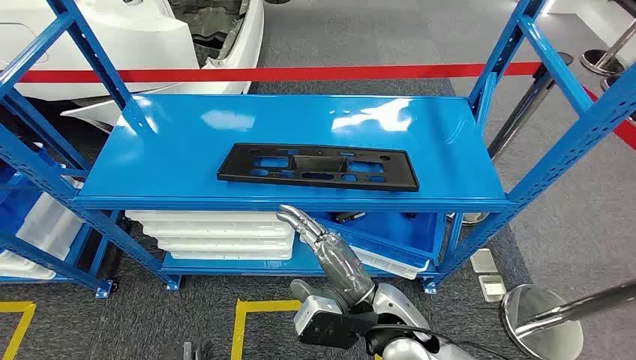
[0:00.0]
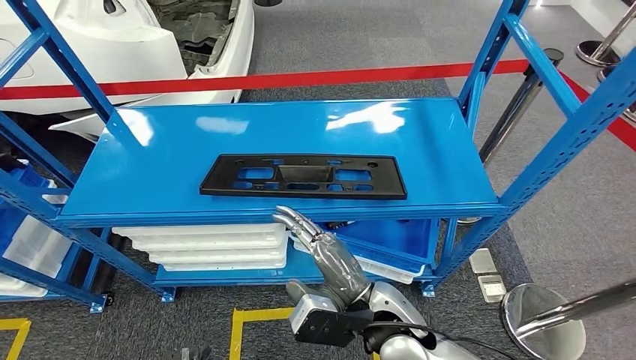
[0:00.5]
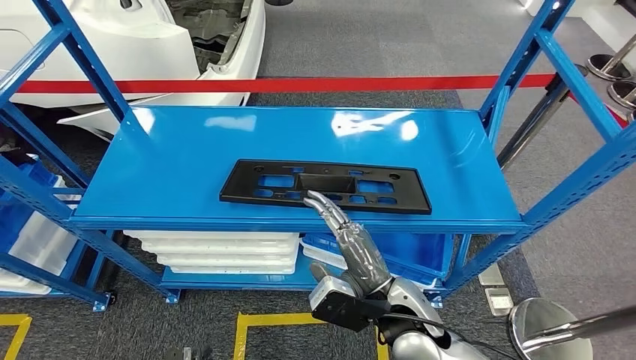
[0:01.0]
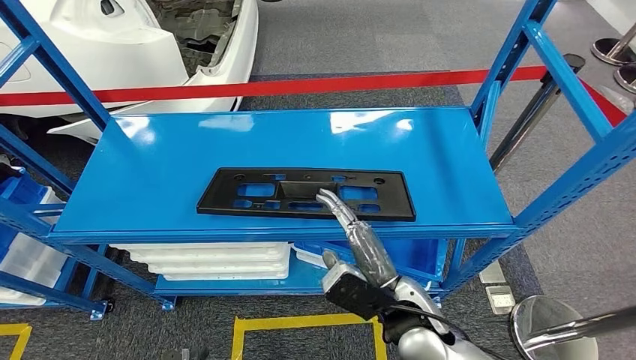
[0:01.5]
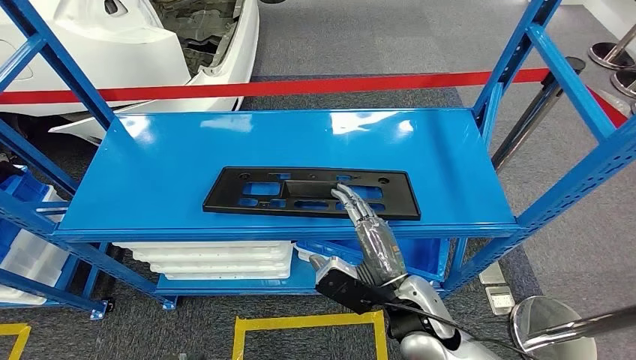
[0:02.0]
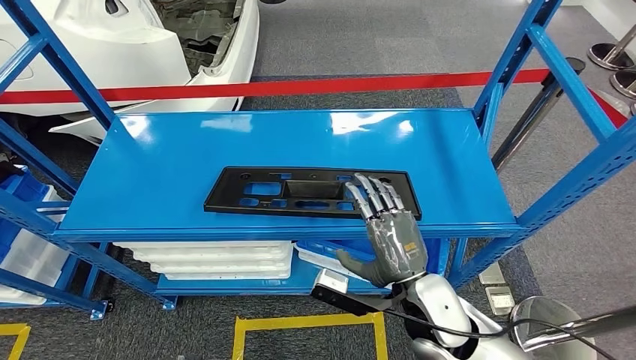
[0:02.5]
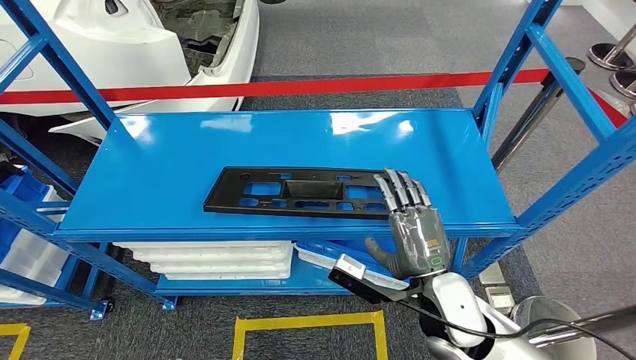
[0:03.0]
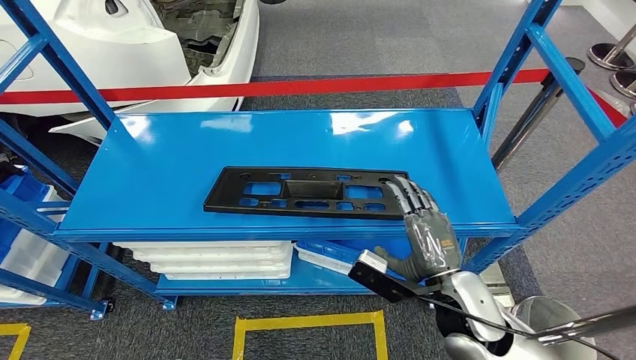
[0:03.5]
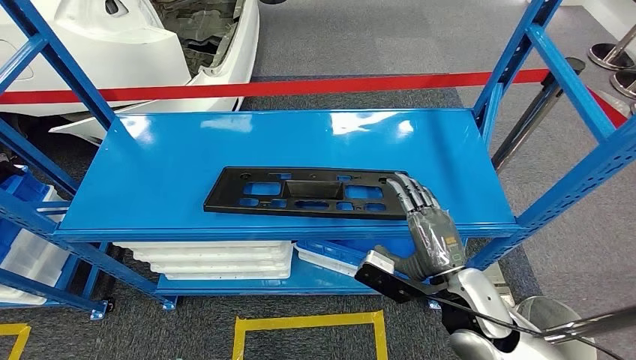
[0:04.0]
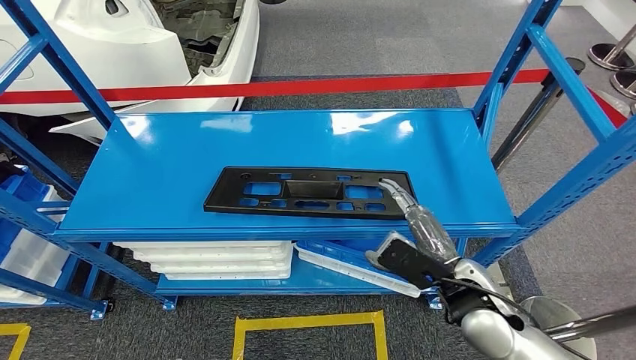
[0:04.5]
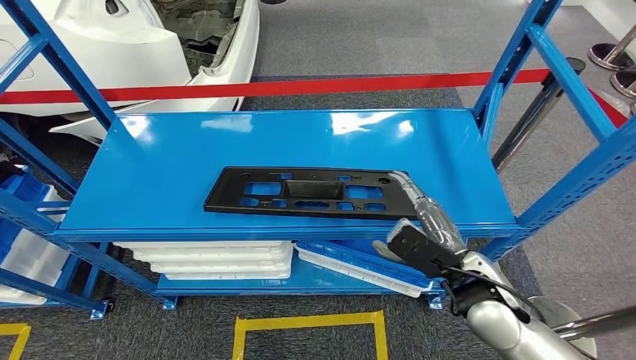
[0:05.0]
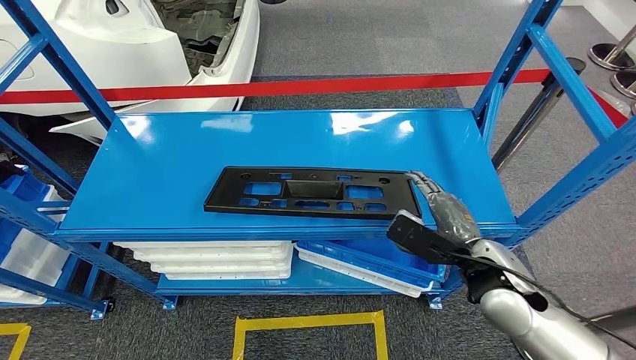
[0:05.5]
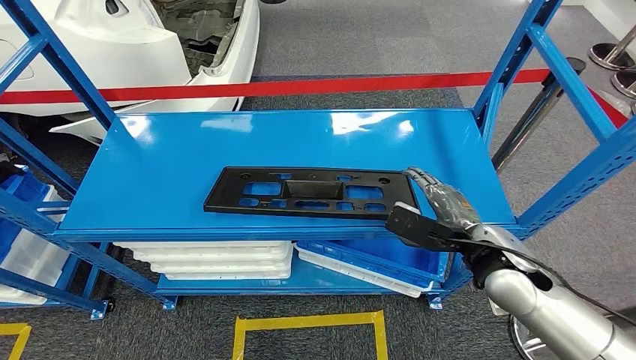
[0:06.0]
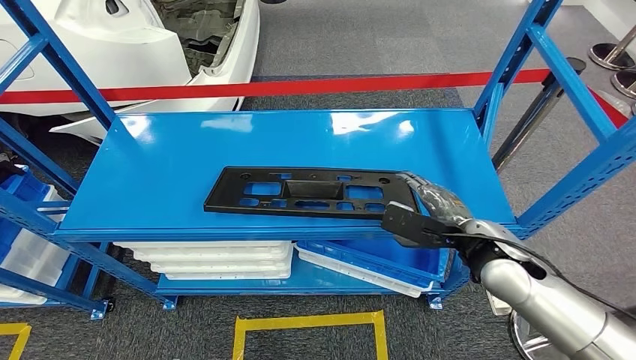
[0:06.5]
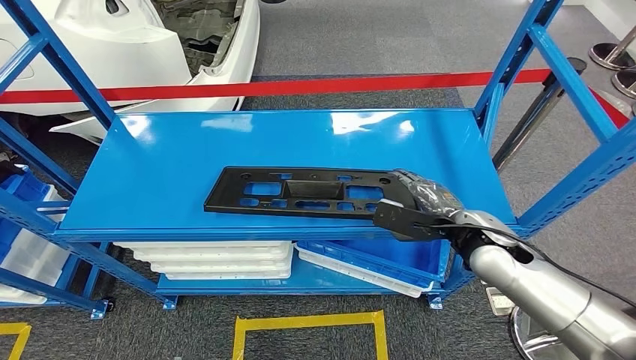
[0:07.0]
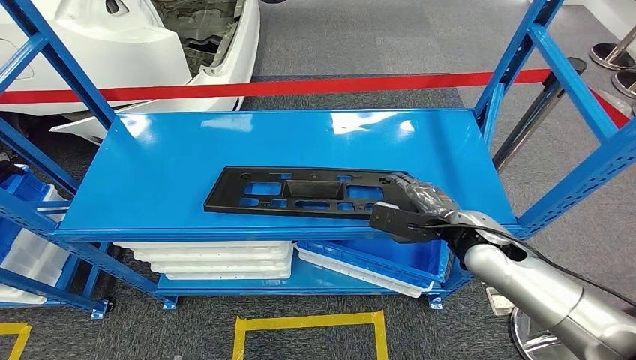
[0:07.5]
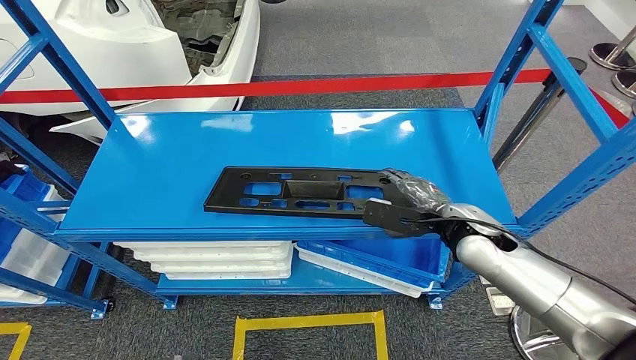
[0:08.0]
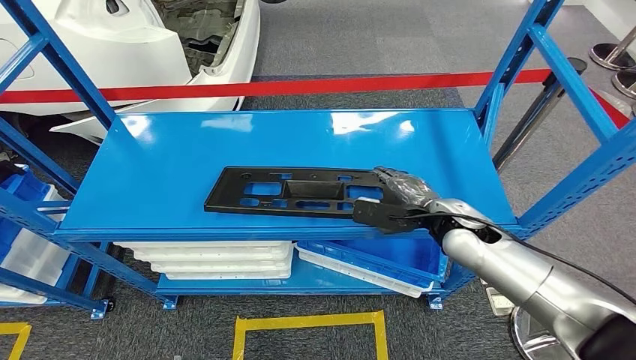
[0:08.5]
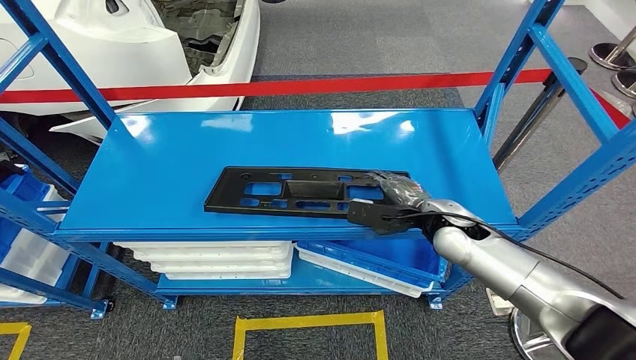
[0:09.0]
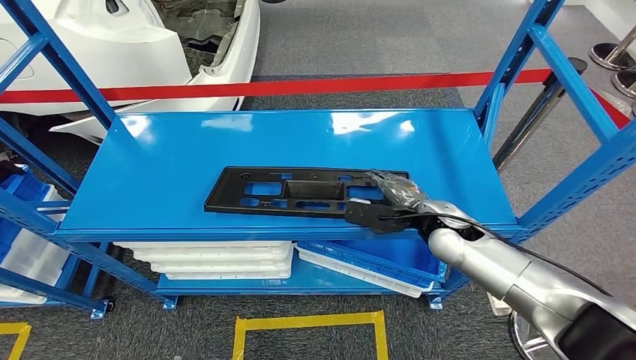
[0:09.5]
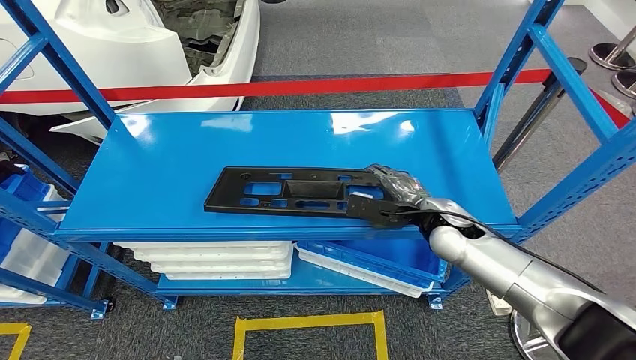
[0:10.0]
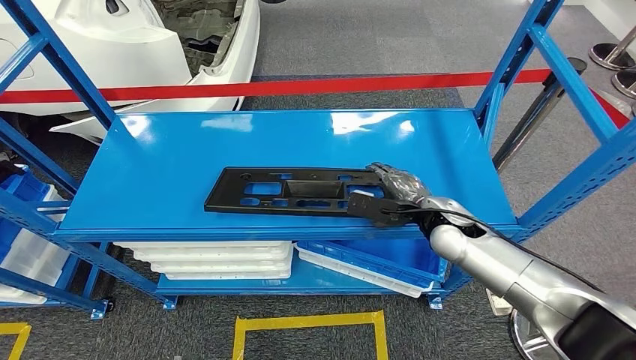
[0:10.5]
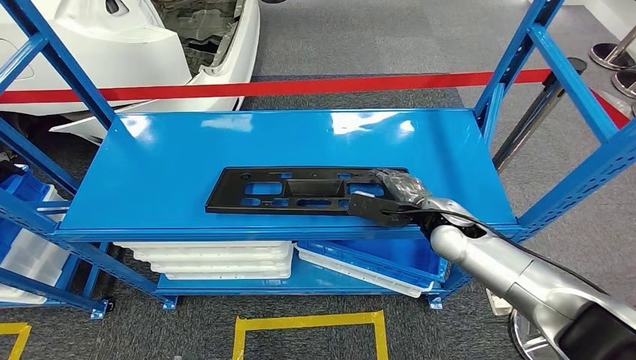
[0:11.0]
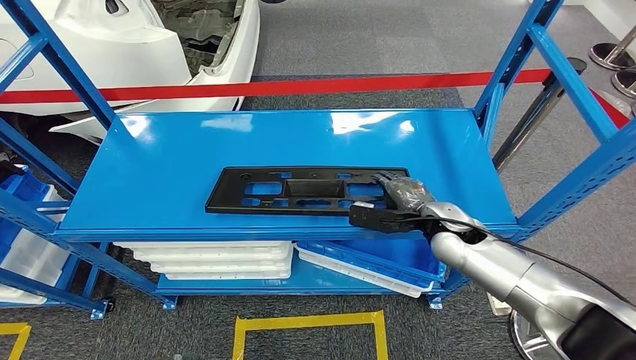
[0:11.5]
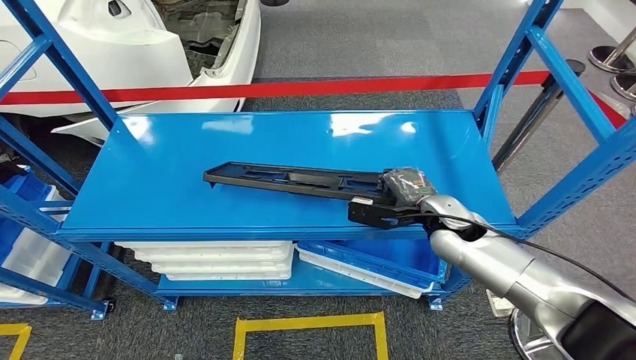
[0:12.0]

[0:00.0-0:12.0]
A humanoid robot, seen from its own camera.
0:02.0 to 0:04.0: The right hand is displaced to the right by about 5 cm.
0:04.0 to 0:06.0: The right hand goes about 5 cm to the right.
0:06.0 to 0:08.0: The right hand shifts about 5 cm forward.
0:08.0 to 0:10.0: The right hand shifts by some 5 cm.
0:10.0 to 0:12.0: The hands move only a little.

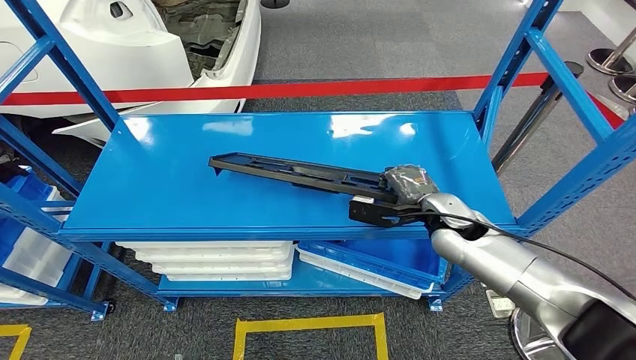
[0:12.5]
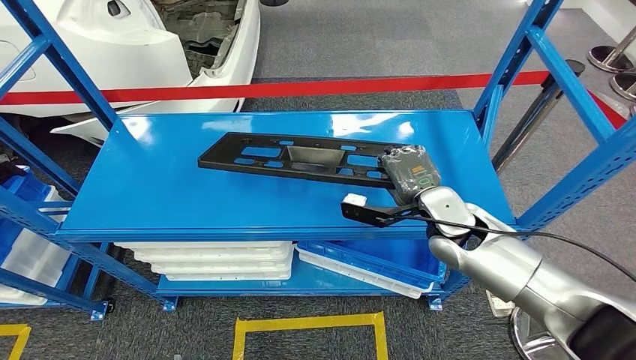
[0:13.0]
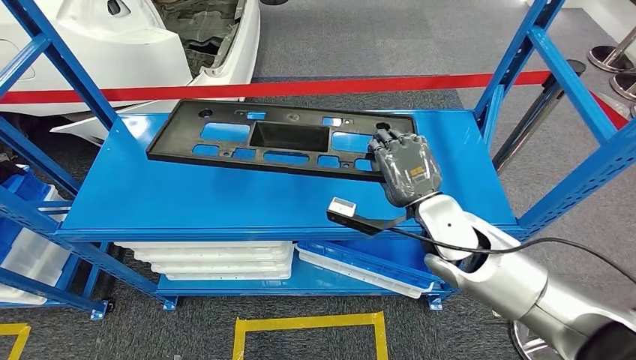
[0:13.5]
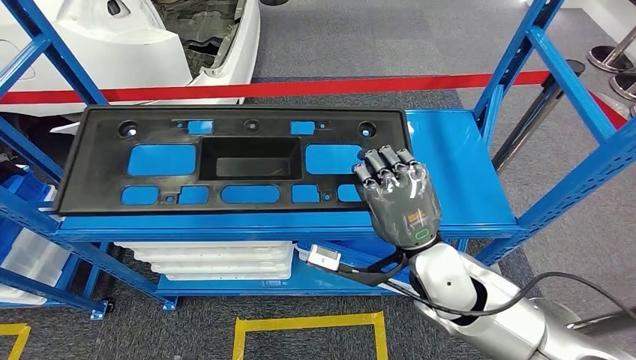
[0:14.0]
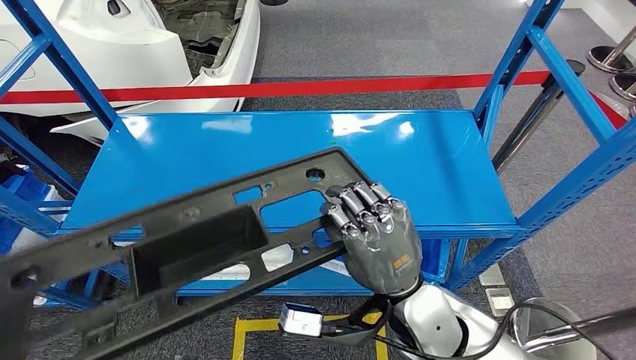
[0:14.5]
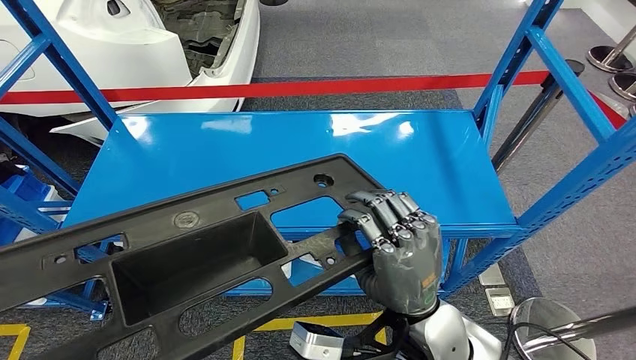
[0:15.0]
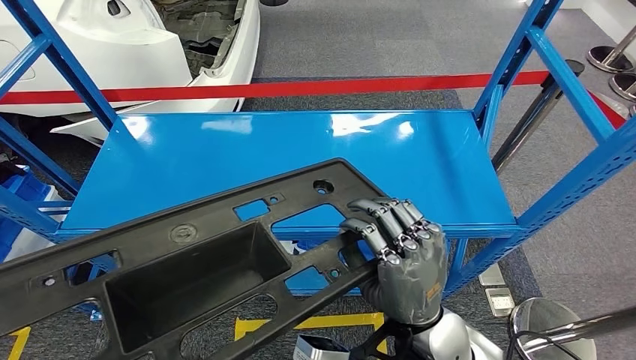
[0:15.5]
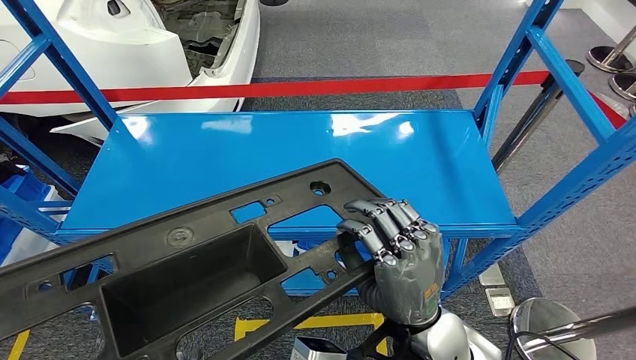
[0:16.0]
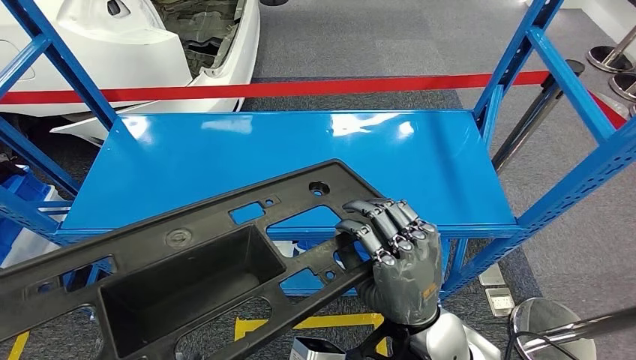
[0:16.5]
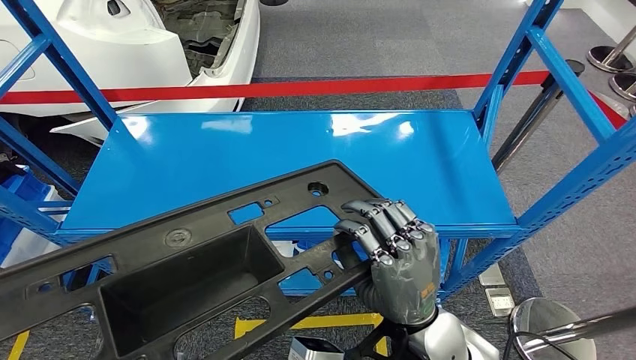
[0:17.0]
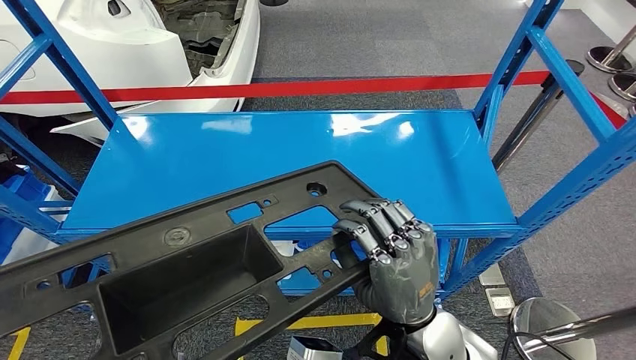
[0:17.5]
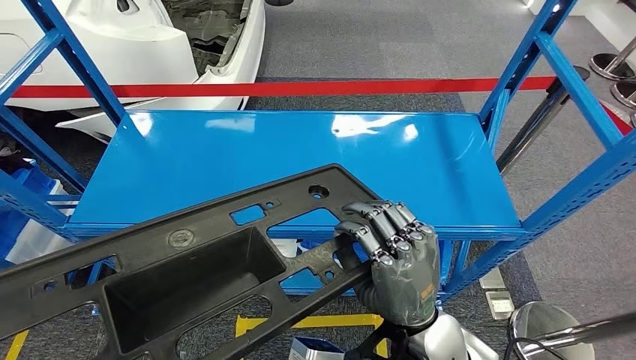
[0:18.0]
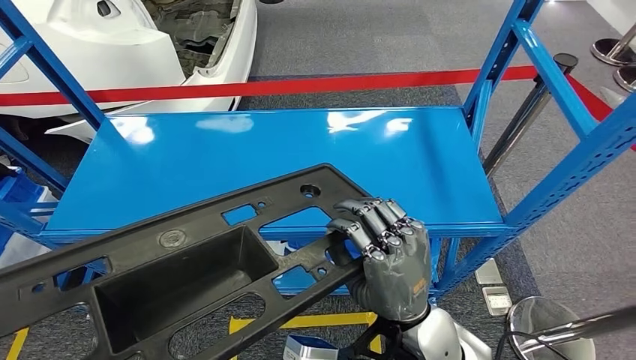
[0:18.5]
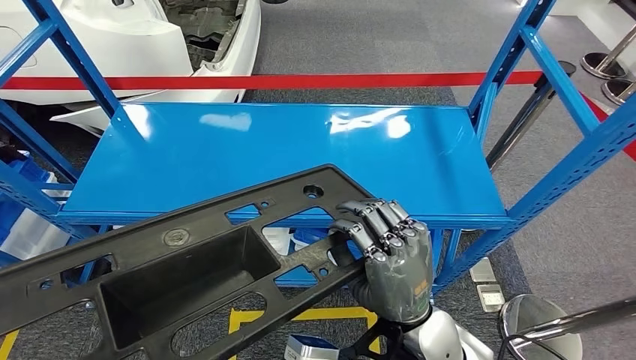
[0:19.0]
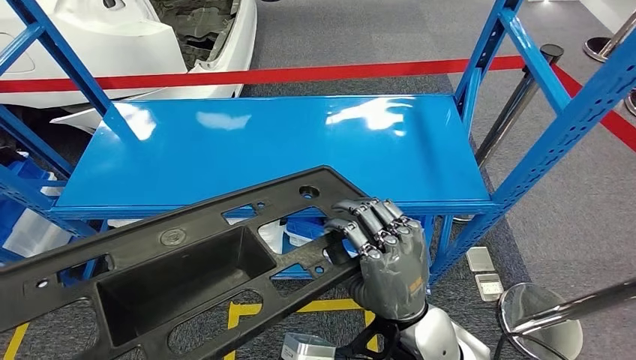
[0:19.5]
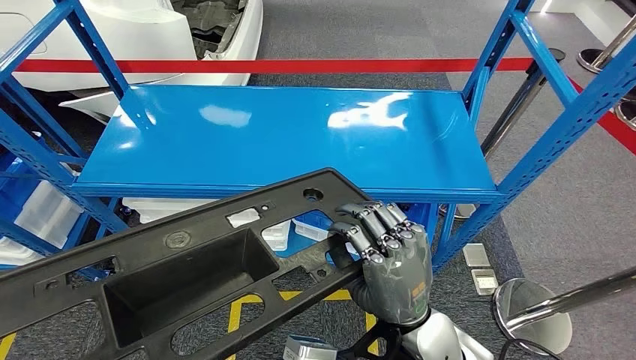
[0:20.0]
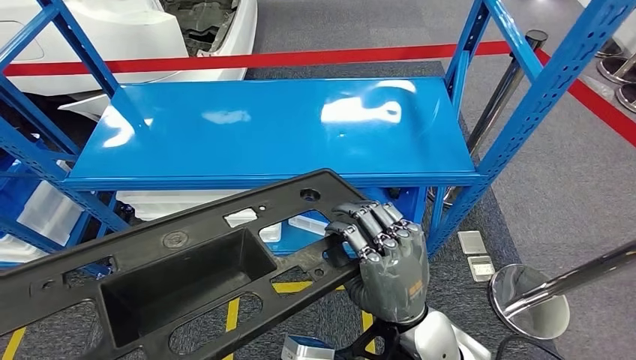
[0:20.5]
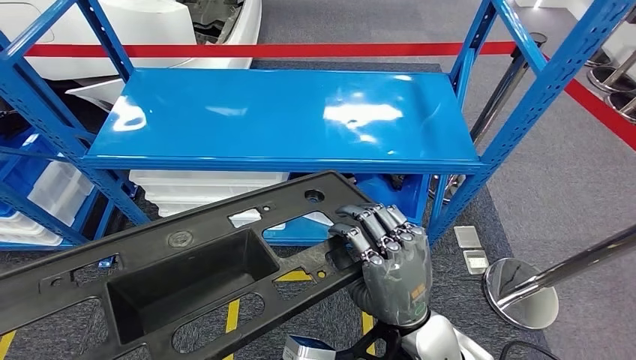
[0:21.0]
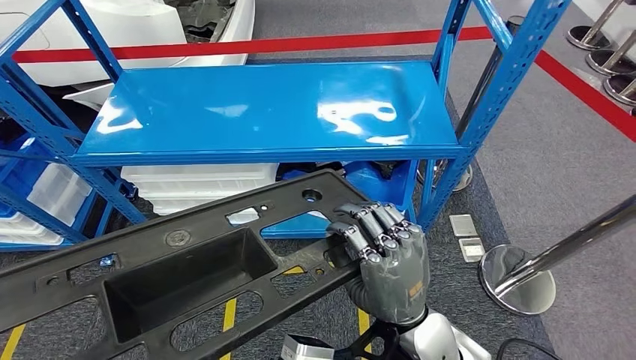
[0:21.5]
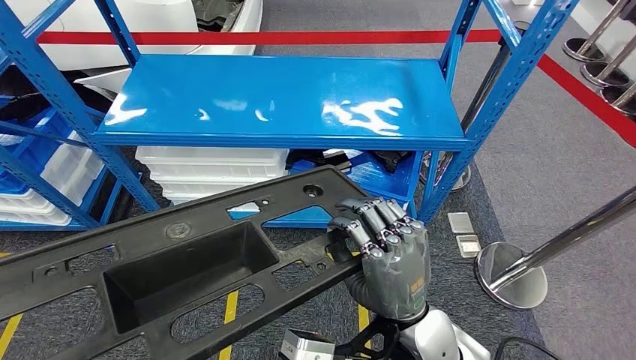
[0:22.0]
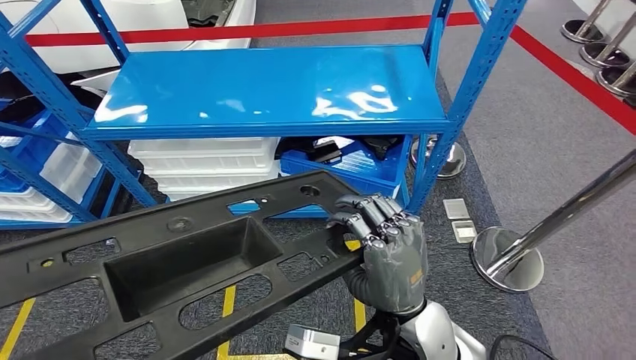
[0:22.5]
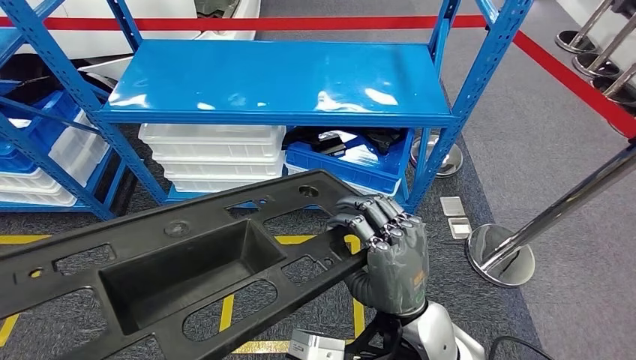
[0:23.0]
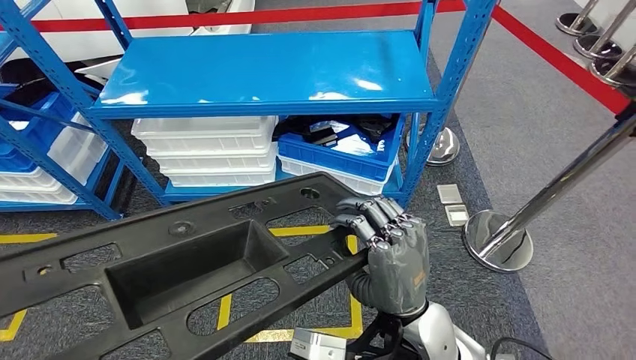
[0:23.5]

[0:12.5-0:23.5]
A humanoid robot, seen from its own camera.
Step, 0:12.5 to 0:17.0: Pick up the large material from the shelf.
0:14.5 to 0:16.0: The hands stay close to where they were, moving slightly.
